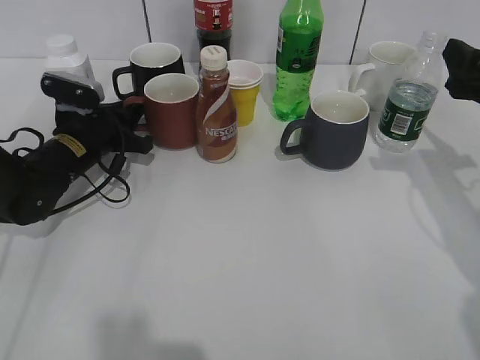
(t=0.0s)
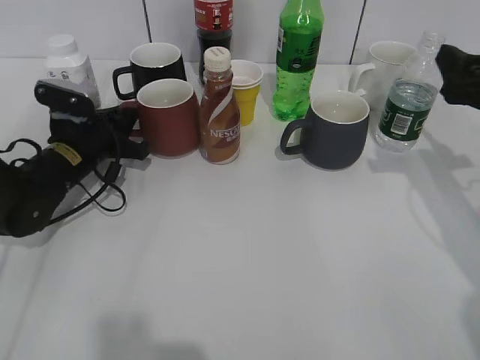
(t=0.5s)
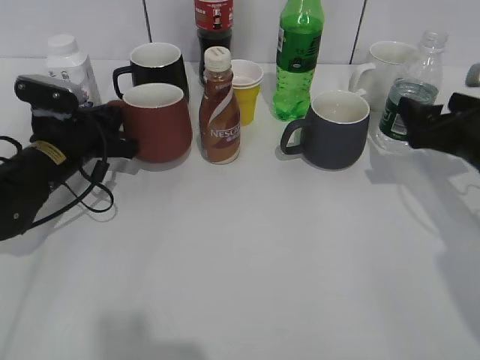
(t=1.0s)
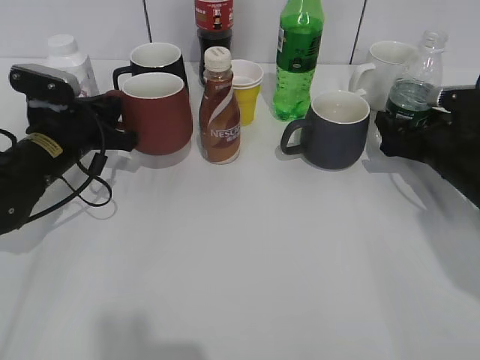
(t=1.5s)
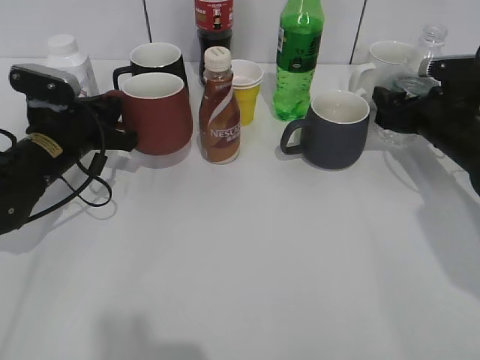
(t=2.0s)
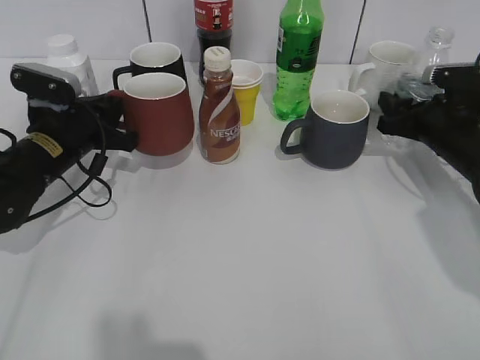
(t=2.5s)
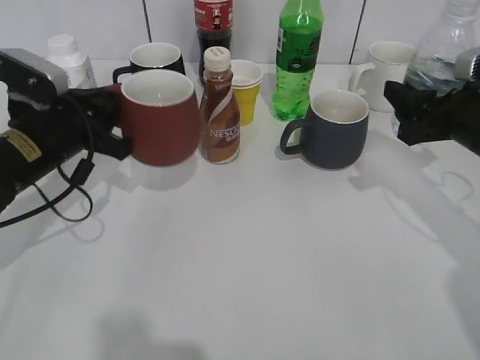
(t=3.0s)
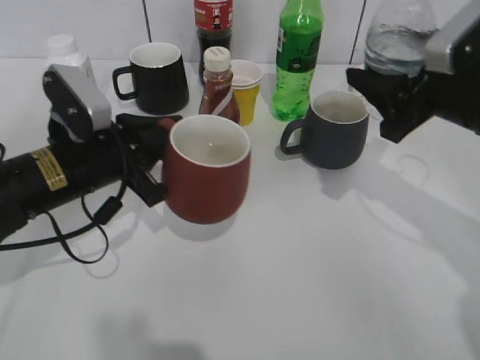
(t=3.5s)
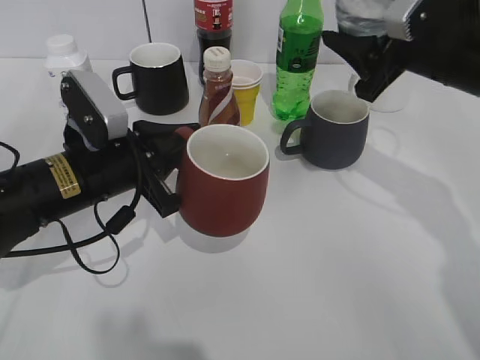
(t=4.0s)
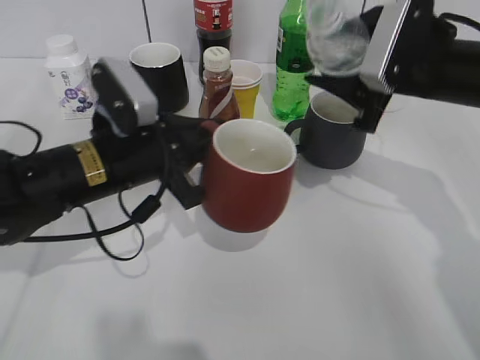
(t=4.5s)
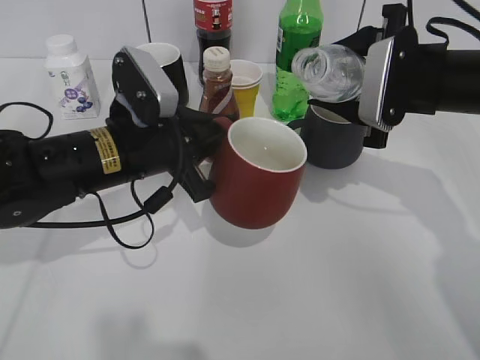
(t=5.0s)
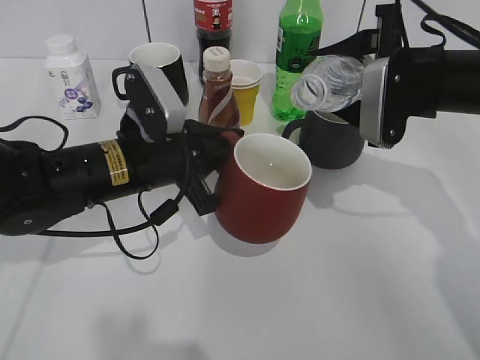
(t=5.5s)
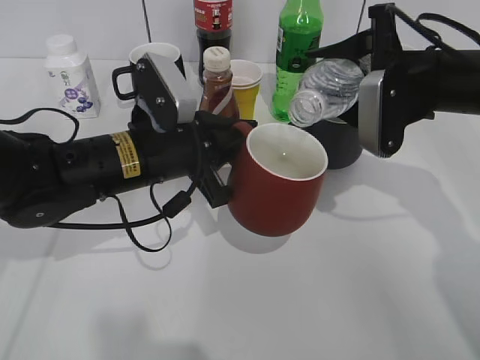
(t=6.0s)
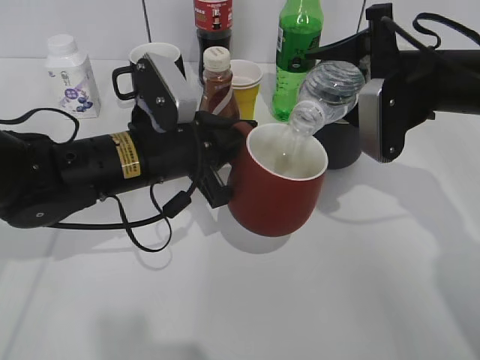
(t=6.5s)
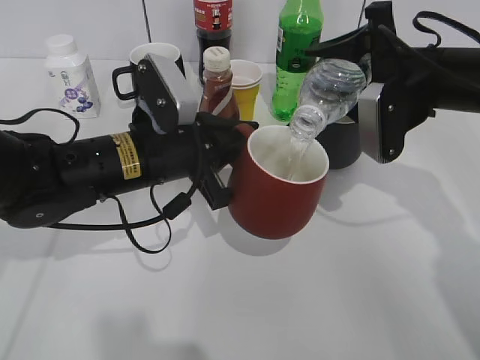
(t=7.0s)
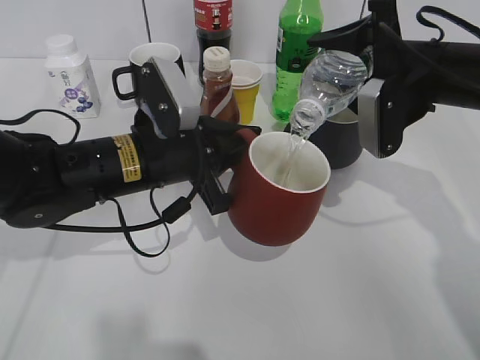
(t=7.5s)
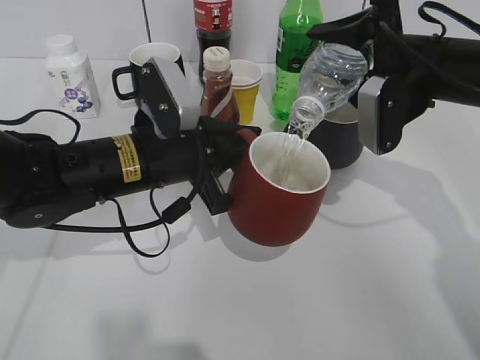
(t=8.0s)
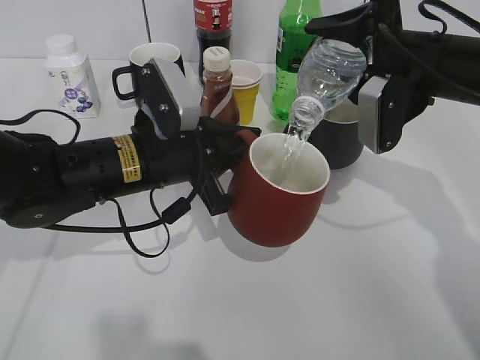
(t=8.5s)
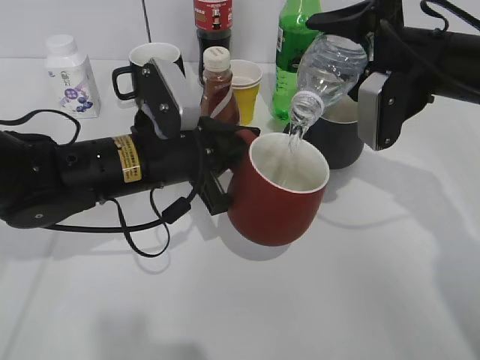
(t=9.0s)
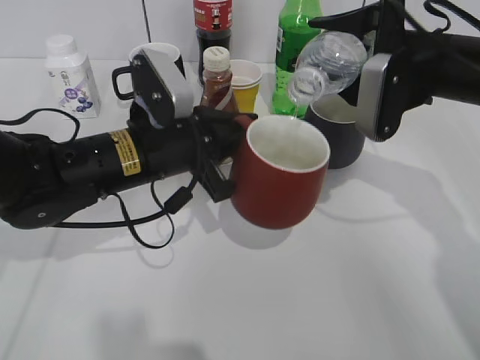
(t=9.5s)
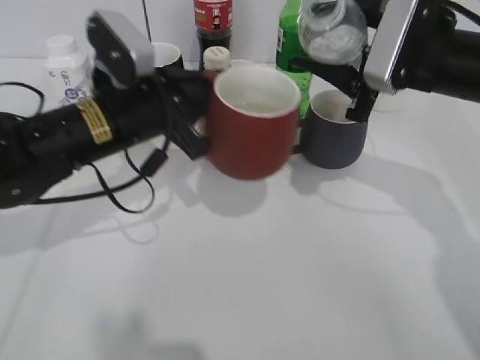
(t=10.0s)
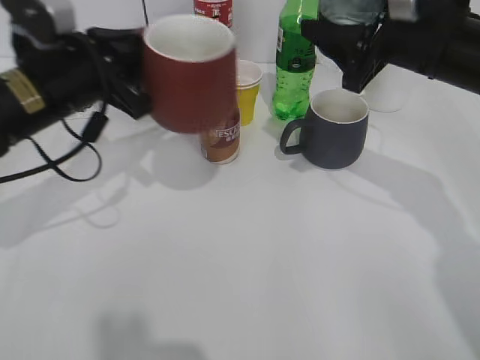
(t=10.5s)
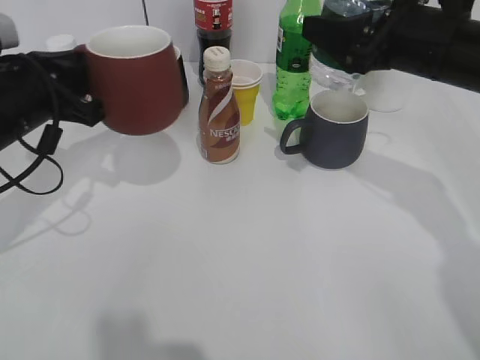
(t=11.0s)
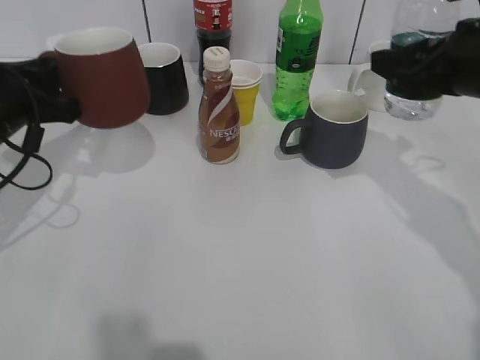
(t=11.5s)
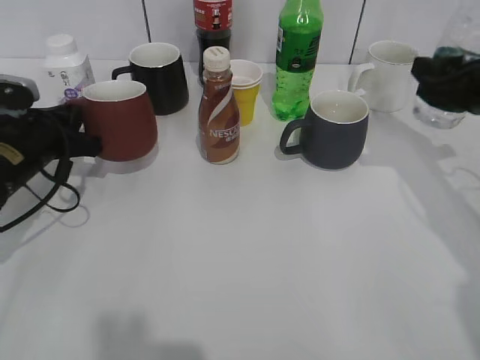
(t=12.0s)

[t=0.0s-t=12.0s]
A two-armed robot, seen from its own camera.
Step, t=2.5s to t=9.5s: Pour the water from bottle to cup with right gripper.
t=0.0s to t=2.0s: The right gripper shifts some 15 cm downward and forward.
t=2.0s to t=4.0s: The right gripper heads upward and to the left, covering roughly 15 cm, and closes, while the left gripper heads backward and to the right, covering approximately 10 cm.
t=4.0s to t=6.0s: The left gripper is displaced to the right by roughly 5 cm.
t=6.0s to t=8.0s: The grippers stay close to where they were, moving slightly.
t=10.0s to t=12.0s: The right gripper shifts roughly 10 cm to the right; the left gripper goes roughly 15 cm to the left and downward.

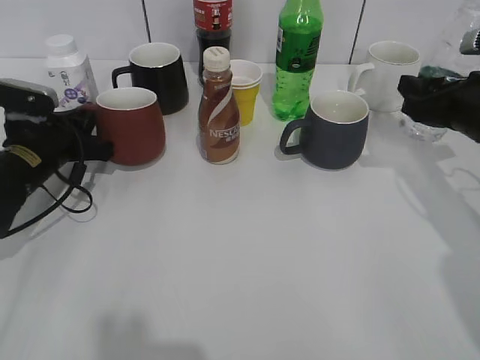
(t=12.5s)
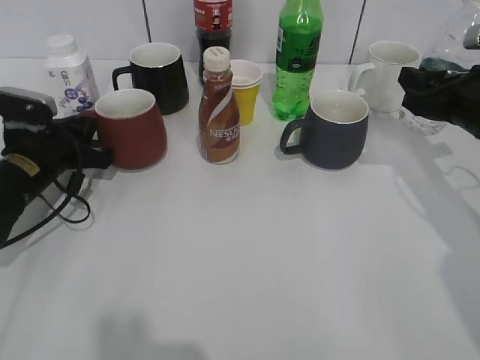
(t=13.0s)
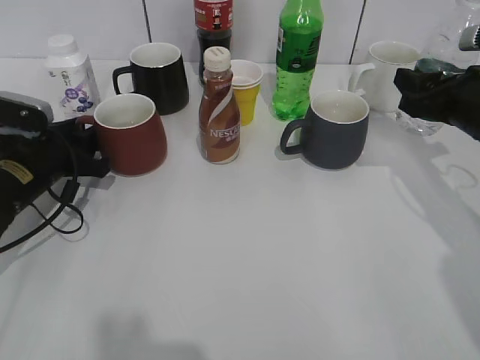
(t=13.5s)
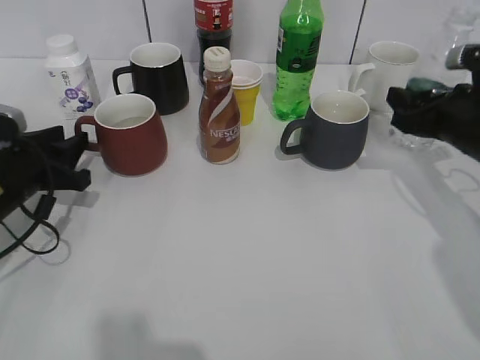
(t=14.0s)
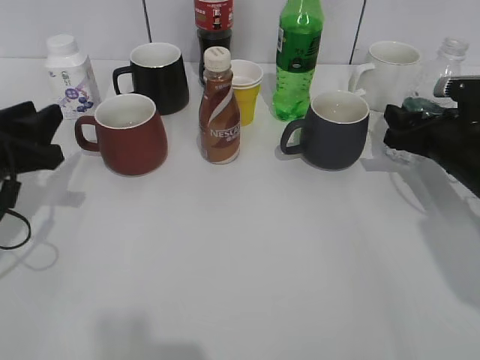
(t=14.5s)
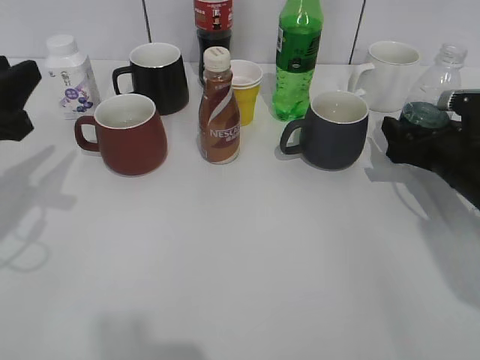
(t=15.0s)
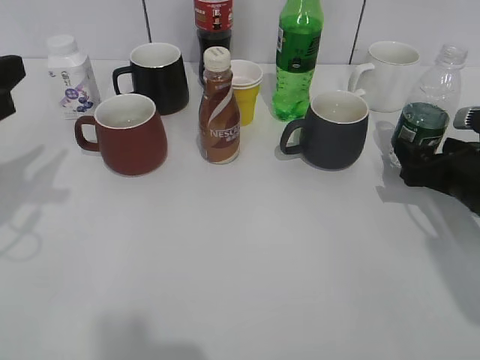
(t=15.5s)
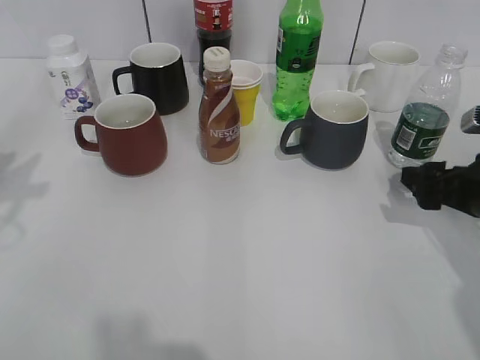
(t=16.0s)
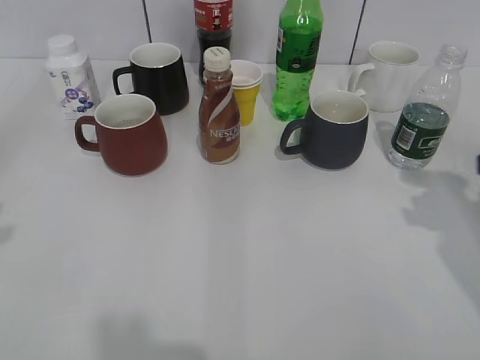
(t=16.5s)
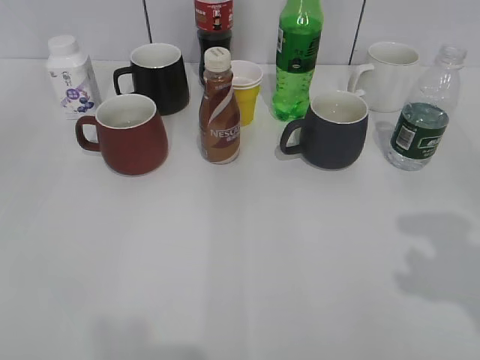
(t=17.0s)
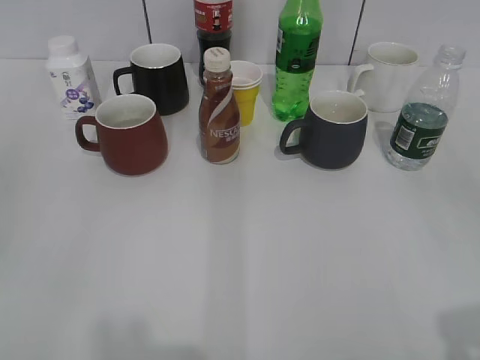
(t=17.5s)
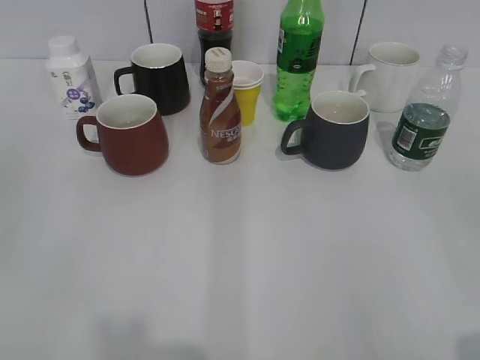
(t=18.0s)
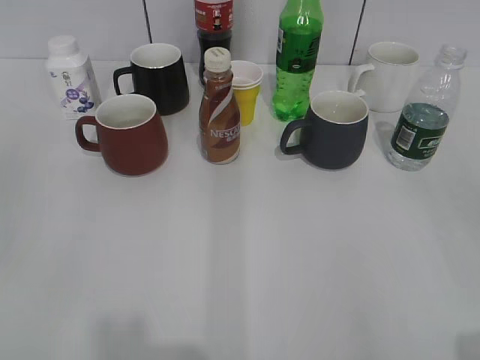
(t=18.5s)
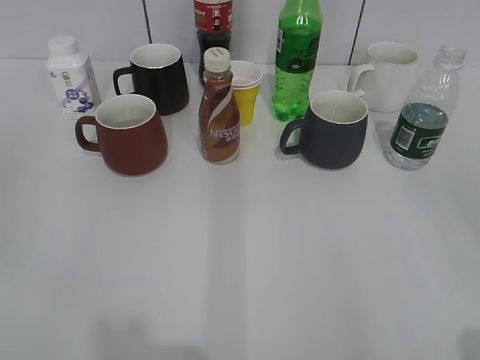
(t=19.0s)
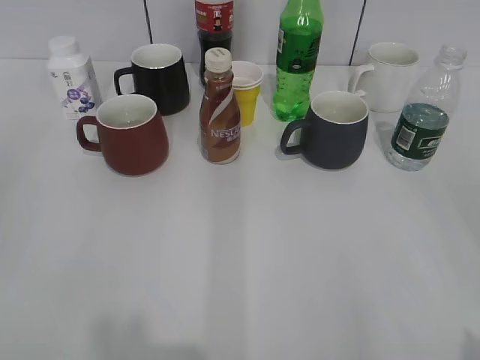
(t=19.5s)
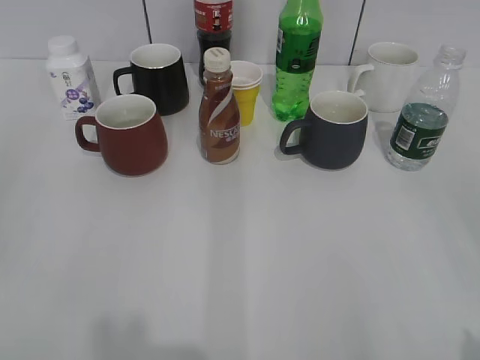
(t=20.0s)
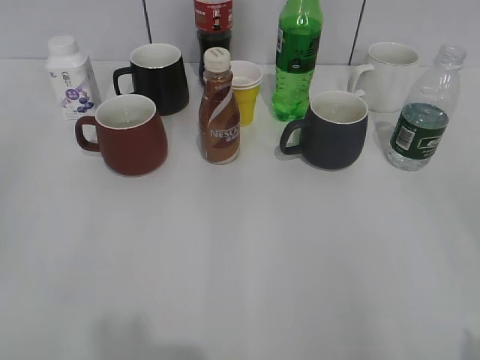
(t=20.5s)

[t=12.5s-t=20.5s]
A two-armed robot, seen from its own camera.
Step, t=14.0s to t=15.0s: Place the water bottle on the table with right gripper.
t=12.5s to t=14.5s: The right gripper goes some 5 cm downward, while the left gripper shifts about 10 cm backward and upward, and opens up.
t=14.5s to t=16.5s: The left gripper travels upward and backward by about 25 cm. Meanwhile the right gripper is displaced backward and upward by some 15 cm, and opens its fingers.

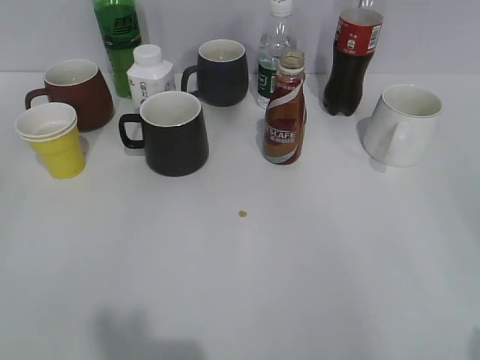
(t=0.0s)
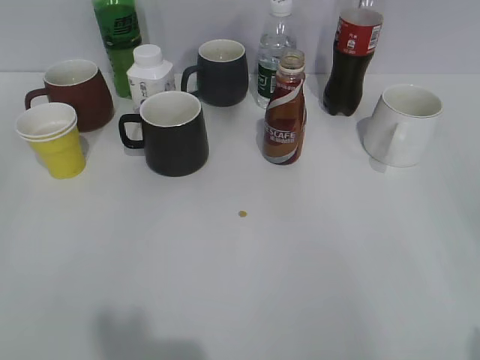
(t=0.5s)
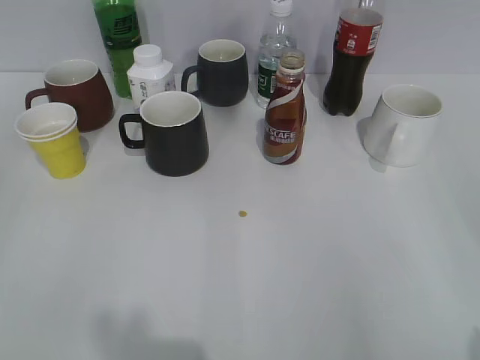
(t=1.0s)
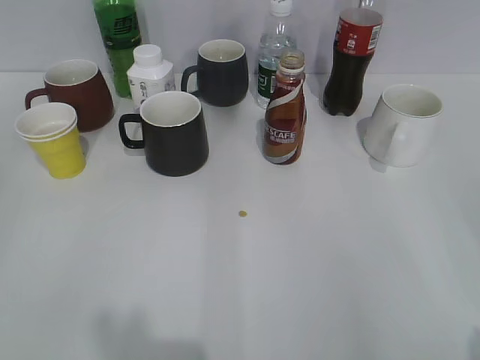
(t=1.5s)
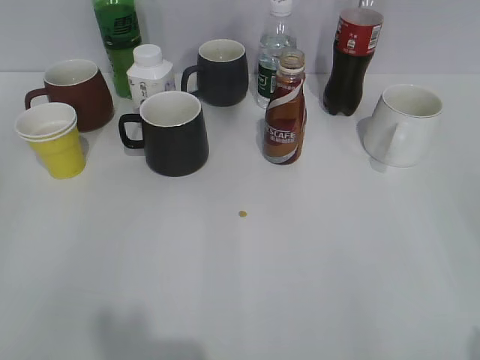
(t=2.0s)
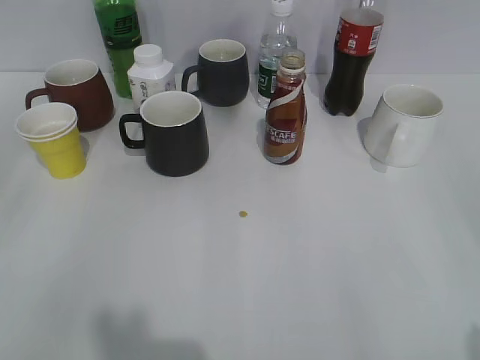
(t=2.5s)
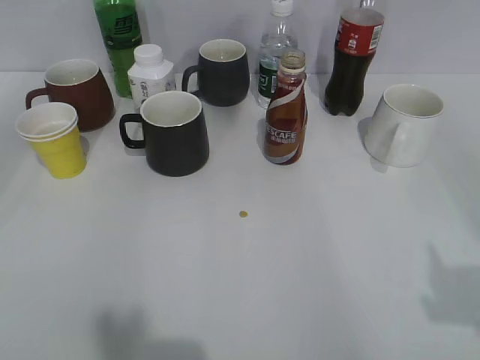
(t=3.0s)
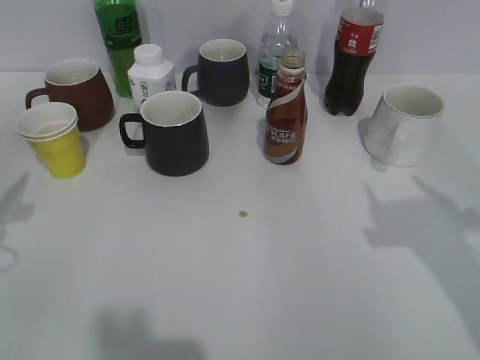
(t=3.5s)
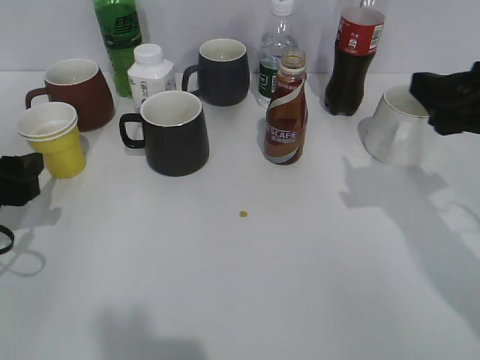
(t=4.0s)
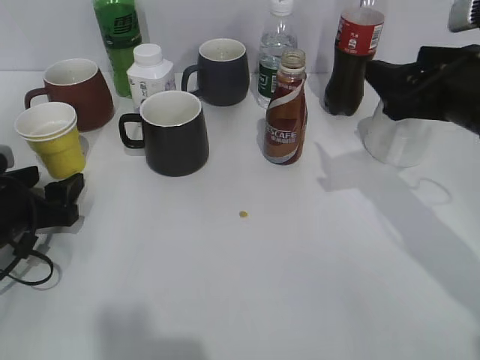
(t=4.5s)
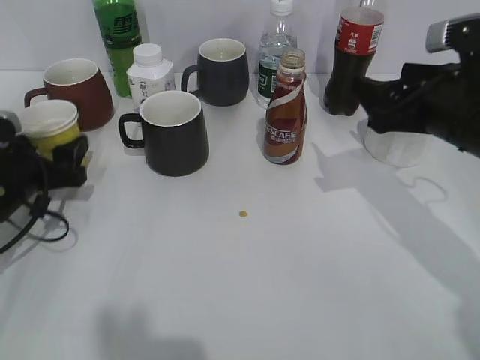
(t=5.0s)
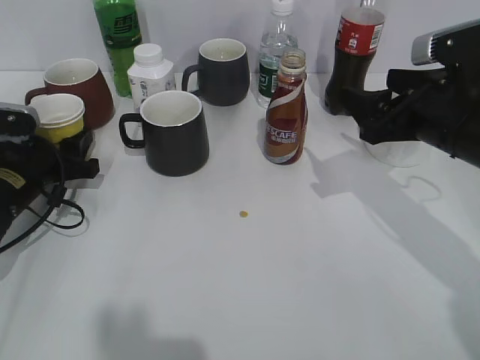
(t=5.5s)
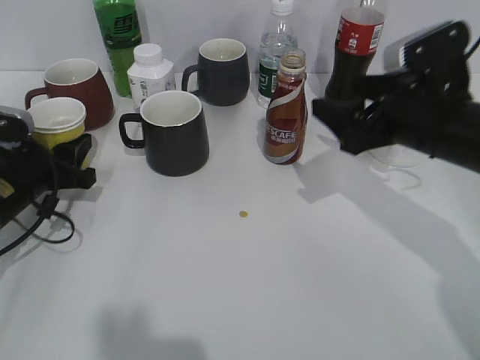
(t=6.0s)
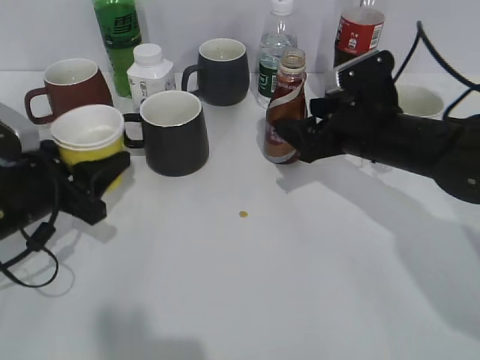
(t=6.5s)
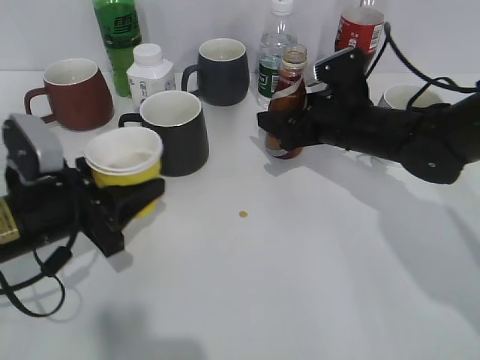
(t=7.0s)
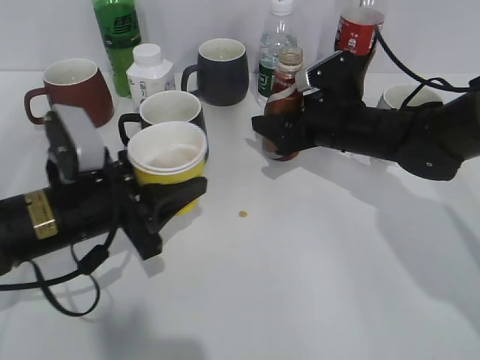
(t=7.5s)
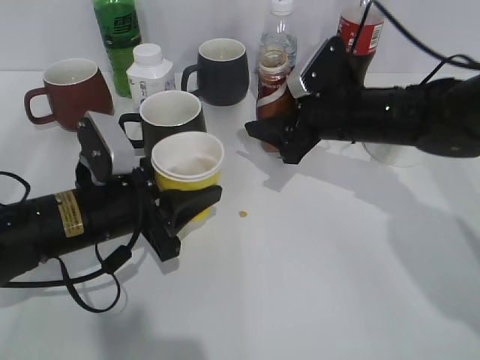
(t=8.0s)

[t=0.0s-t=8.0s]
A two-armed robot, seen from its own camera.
Step, t=2.0s to t=5.0s: Grasp the yellow paper cup with left gripper.
Step, t=6.0s to t=7.0s: Grasp the bottle with coffee with right gripper.
t=2.0s to t=4.0s: The left gripper travels forward and downward by some 25 cm; the right gripper moves forward, roughly 25 cm.
t=4.0s to t=6.0s: The right gripper heads forward, downward and to the left, covering some 10 cm. The left gripper moves forward and downward, approximately 10 cm, and closes its fingers.
t=6.0s to t=8.0s: The left gripper moves to the right and backward, approximately 10 cm; the right gripper heads forward, to the left and downward, covering some 10 cm, and closes its fingers.
